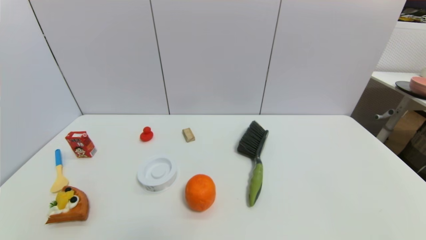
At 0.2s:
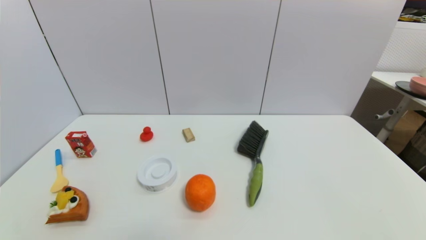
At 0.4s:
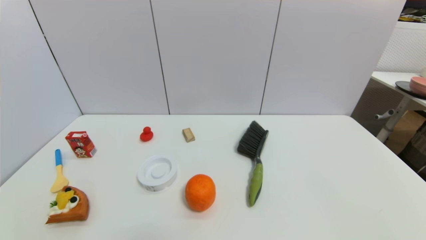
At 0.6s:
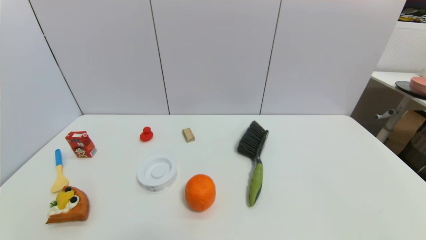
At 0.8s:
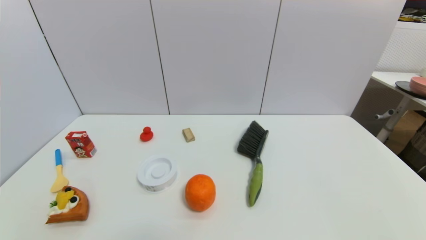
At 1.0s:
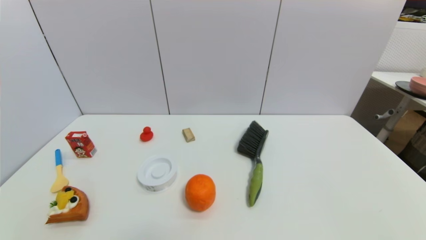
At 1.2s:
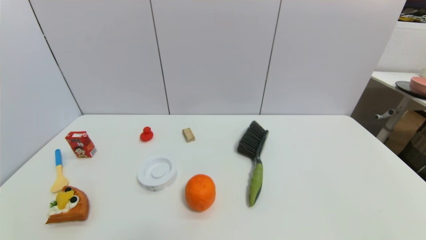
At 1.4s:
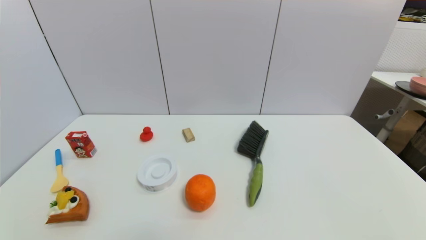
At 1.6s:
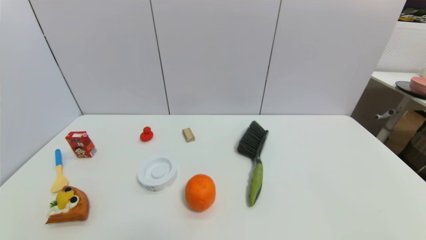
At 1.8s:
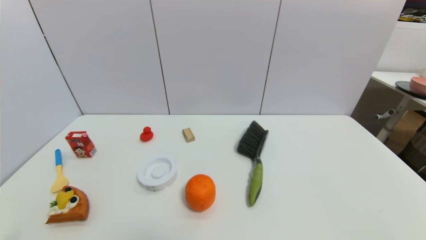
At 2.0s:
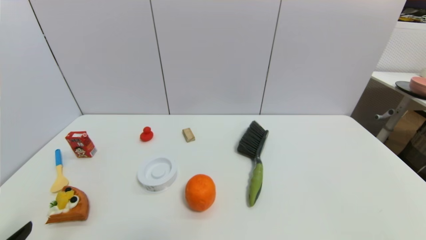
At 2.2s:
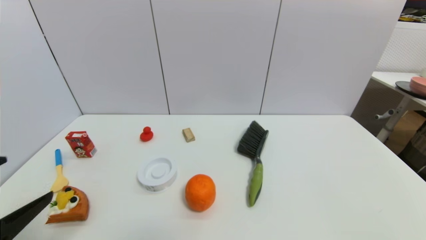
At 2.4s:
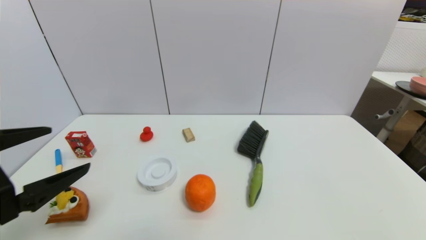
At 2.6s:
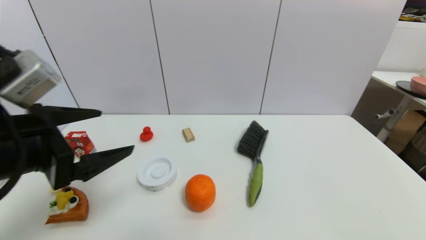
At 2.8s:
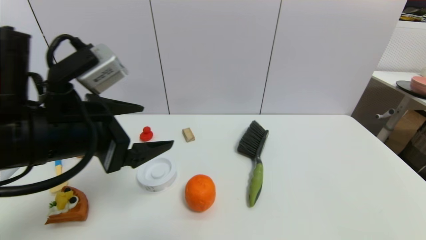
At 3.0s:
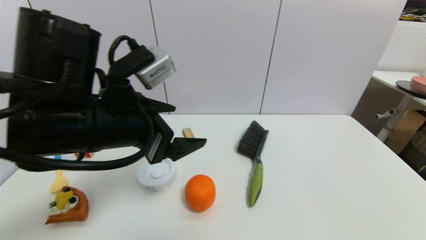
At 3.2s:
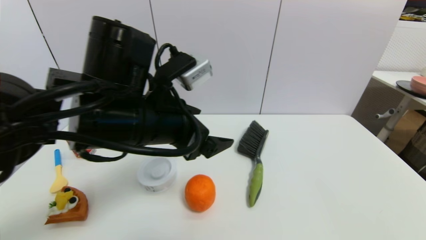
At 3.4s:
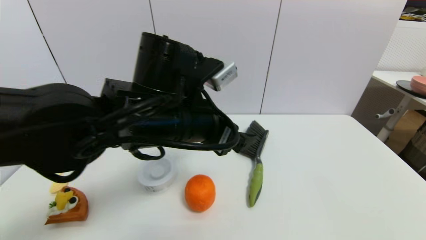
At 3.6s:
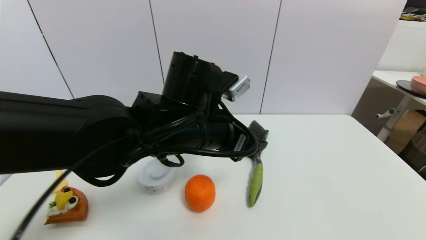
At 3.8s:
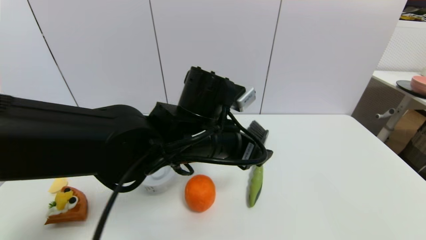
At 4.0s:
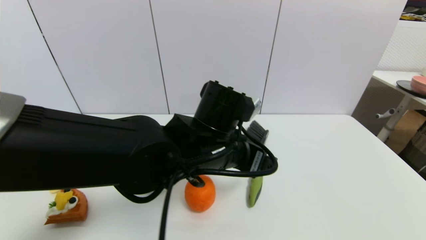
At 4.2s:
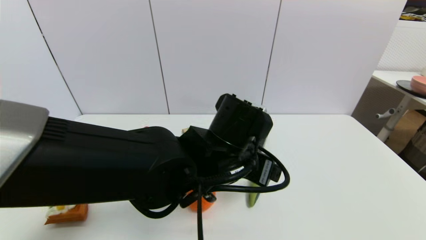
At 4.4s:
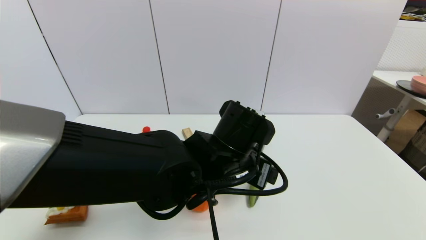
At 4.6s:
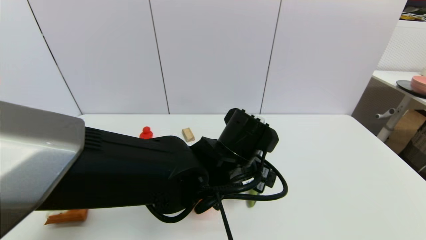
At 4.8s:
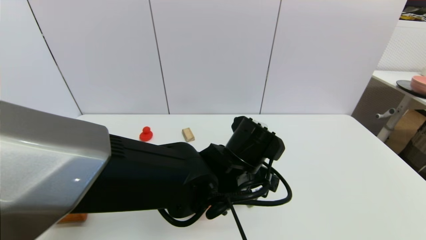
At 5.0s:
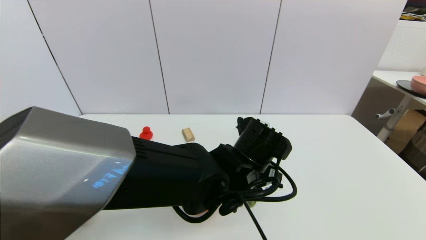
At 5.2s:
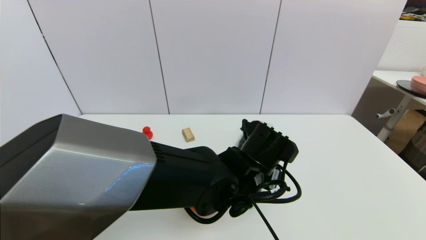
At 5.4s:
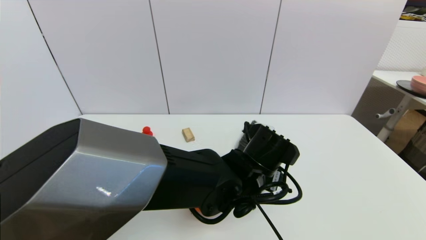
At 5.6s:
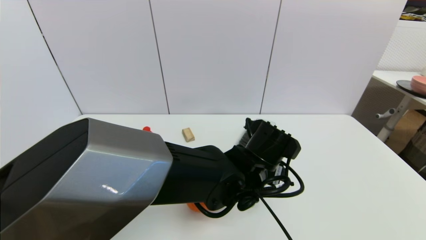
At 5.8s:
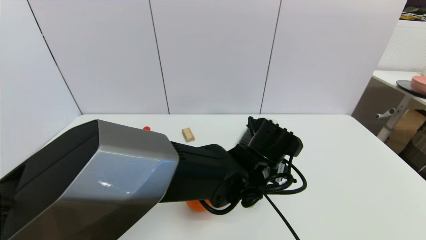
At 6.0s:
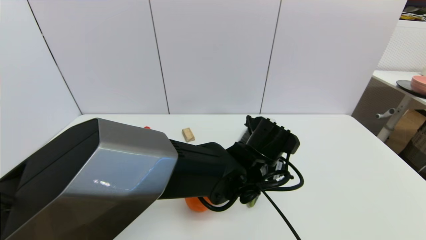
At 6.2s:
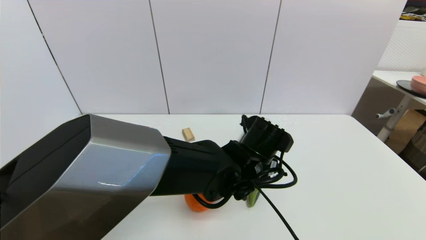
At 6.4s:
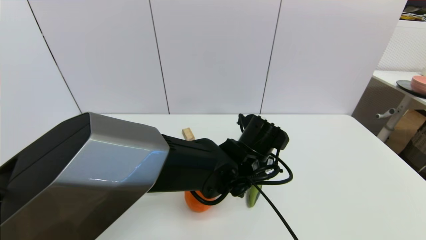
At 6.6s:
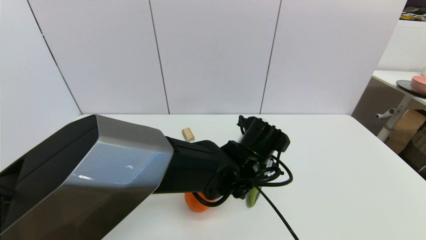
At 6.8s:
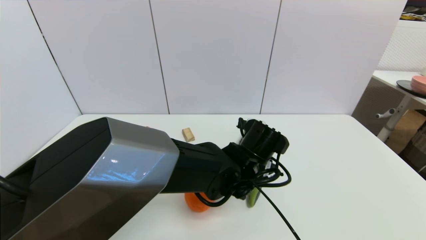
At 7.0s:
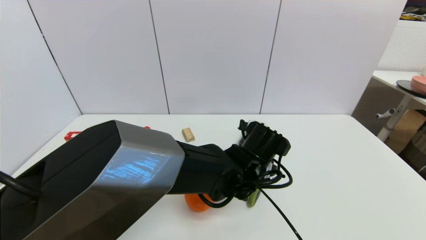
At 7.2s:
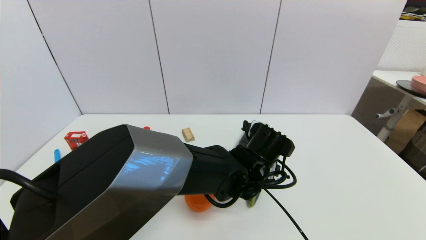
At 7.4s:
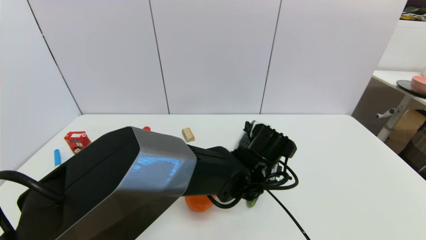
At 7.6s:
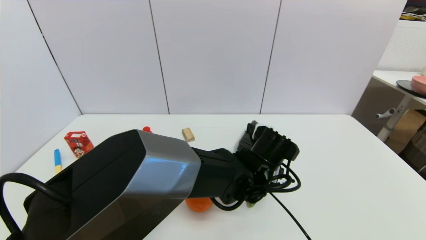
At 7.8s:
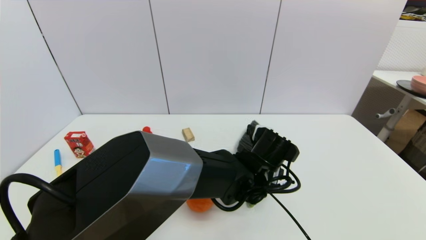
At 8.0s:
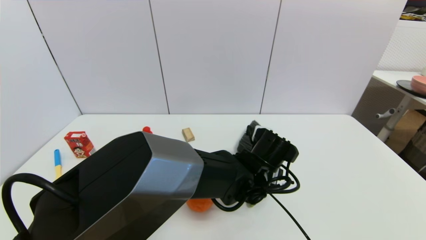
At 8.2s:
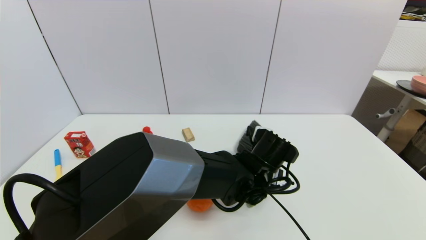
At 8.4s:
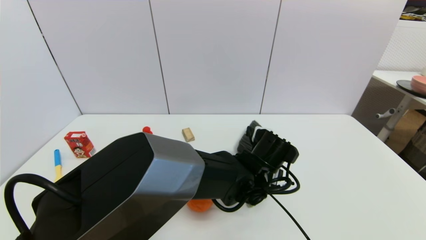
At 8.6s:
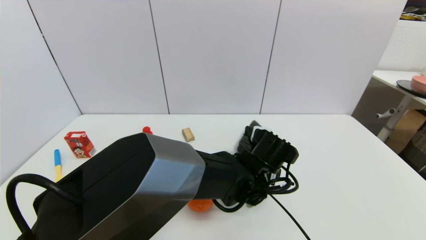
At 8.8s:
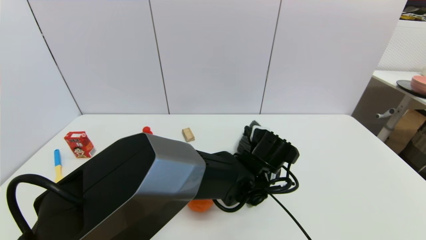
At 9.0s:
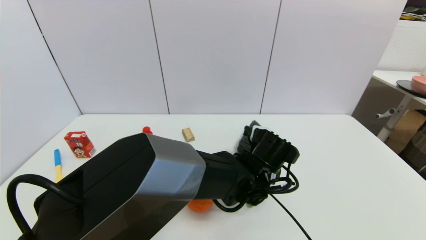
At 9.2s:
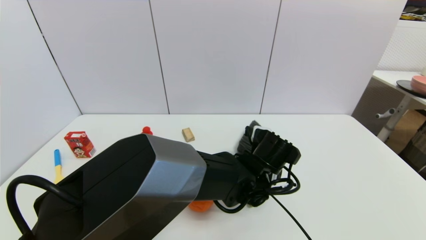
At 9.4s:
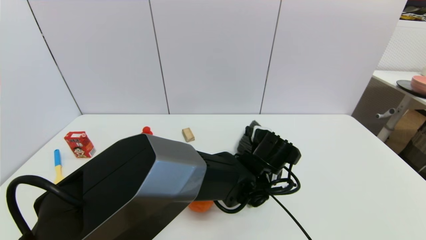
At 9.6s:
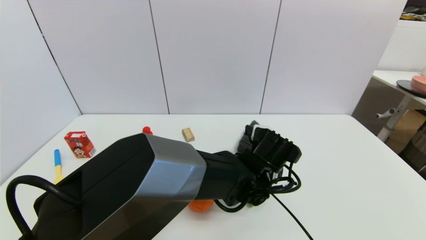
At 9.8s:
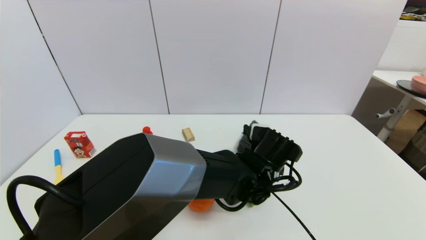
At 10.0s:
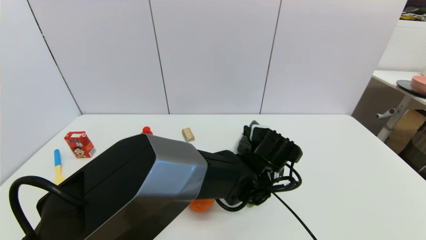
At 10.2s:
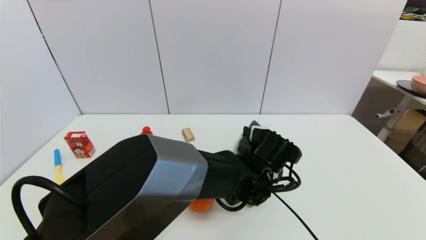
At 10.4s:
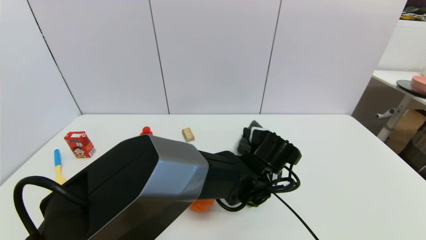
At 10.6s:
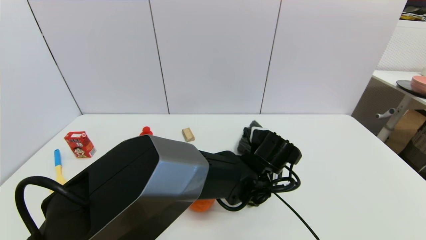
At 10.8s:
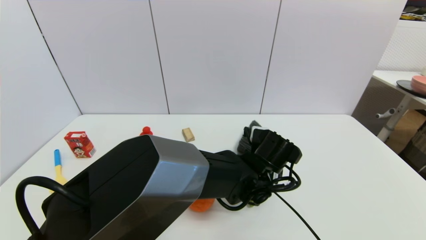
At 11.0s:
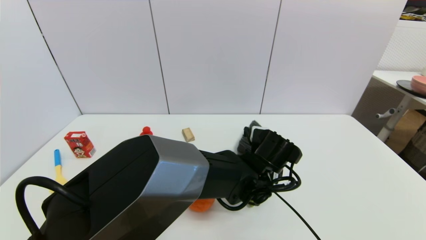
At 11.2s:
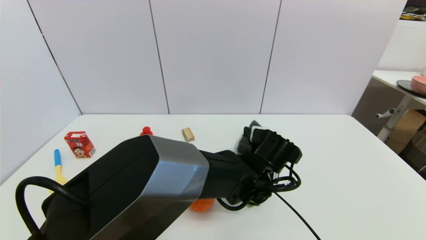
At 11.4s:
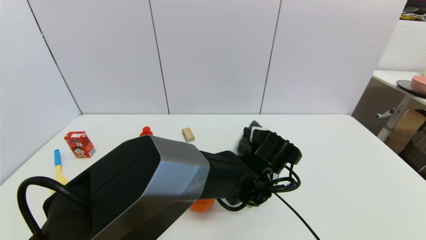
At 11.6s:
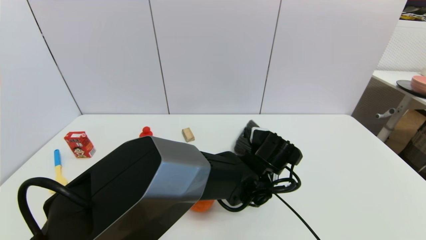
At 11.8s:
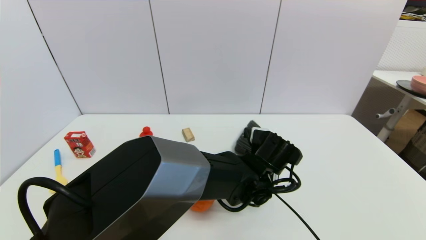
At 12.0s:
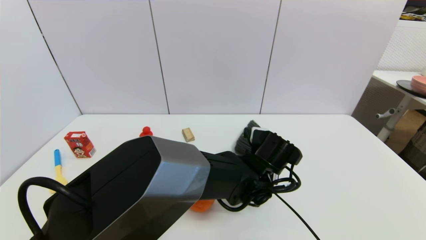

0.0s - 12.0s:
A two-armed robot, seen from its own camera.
Task of the whole recording: put the brush in the designated position.
1.6s - 3.0s: The left gripper travels forward, upward and to the right by about 30 cm.
3.0s - 4.4s: The left gripper moves to the right and downward, about 20 cm.
4.4s - 6.0s: The left gripper moves to the right, roughly 5 cm.
6.0s - 7.6s: The grippers stay close to where they were, moving slightly.
7.6s - 9.0s: Both grippers stay put.
9.0s - 10.4s: The grippers make only small movements.
10.4s - 12.0s: The left gripper closes.

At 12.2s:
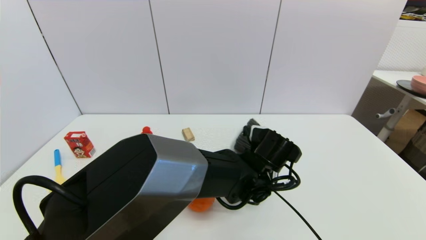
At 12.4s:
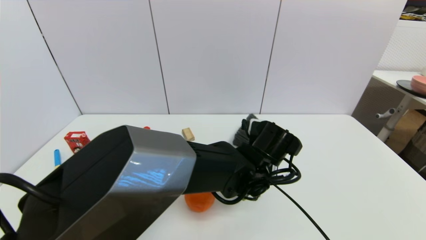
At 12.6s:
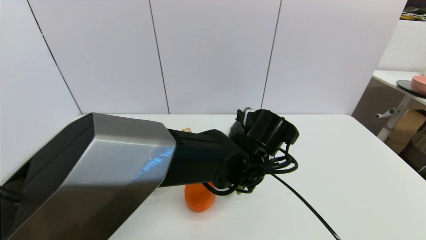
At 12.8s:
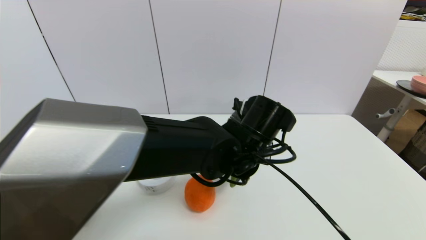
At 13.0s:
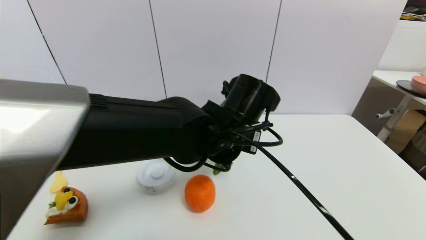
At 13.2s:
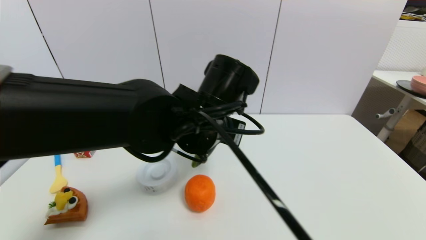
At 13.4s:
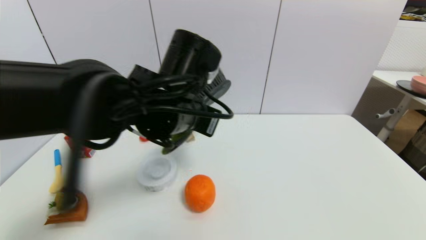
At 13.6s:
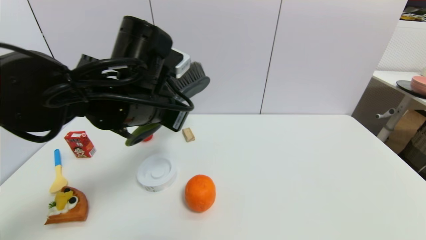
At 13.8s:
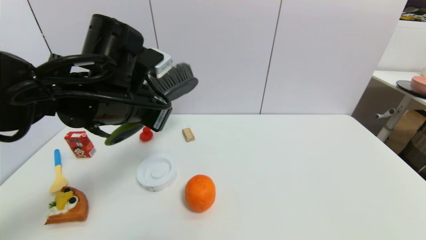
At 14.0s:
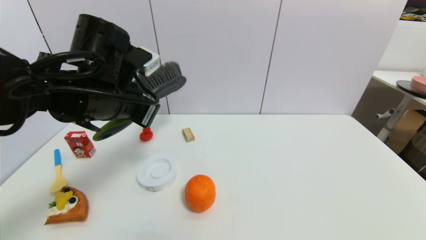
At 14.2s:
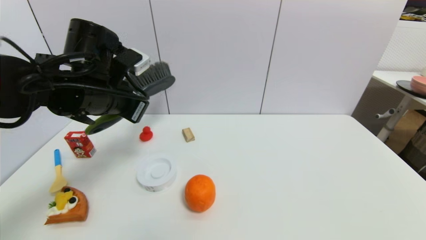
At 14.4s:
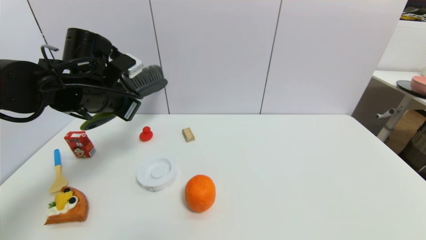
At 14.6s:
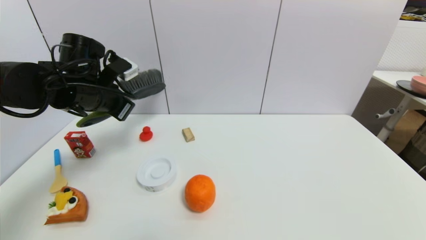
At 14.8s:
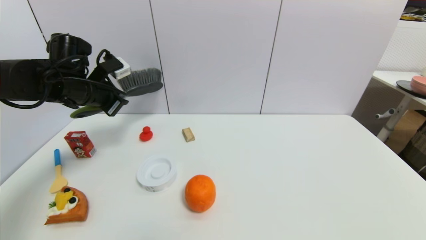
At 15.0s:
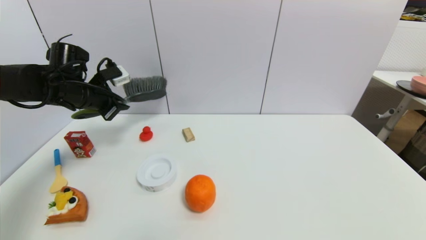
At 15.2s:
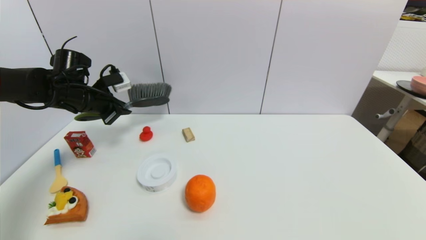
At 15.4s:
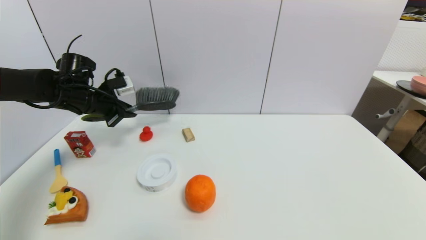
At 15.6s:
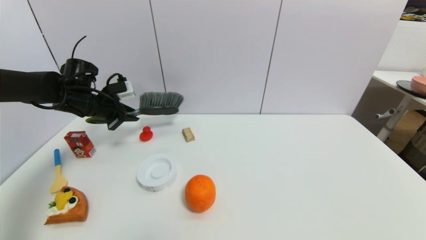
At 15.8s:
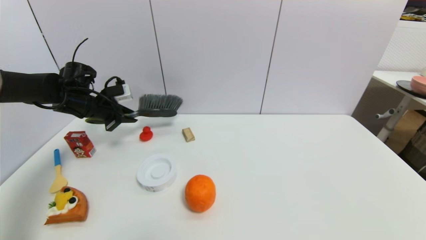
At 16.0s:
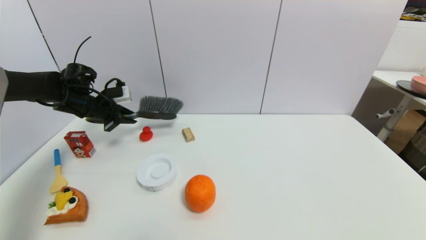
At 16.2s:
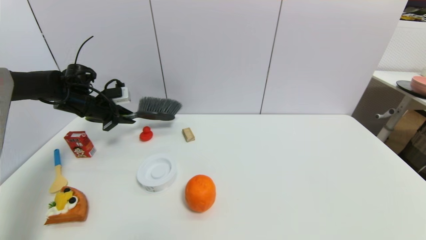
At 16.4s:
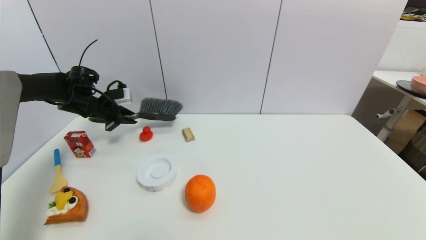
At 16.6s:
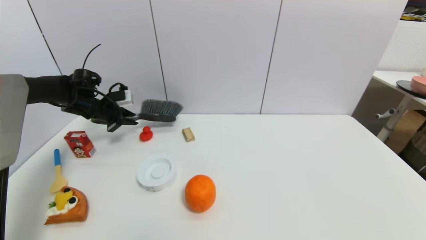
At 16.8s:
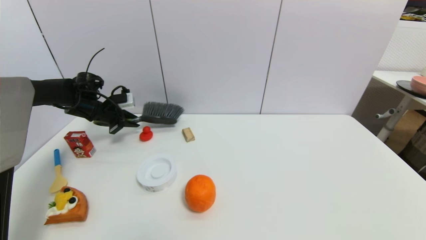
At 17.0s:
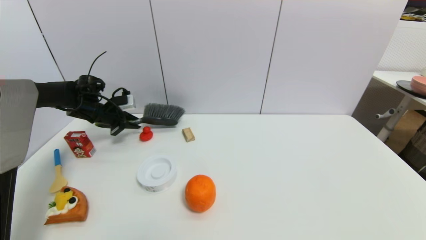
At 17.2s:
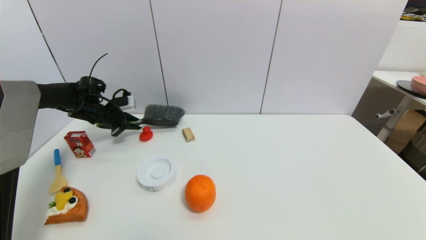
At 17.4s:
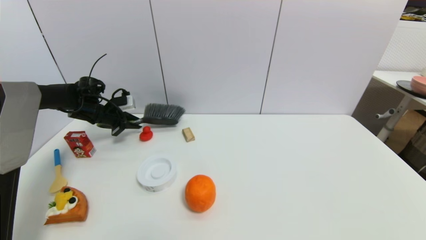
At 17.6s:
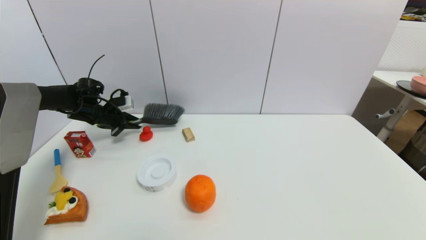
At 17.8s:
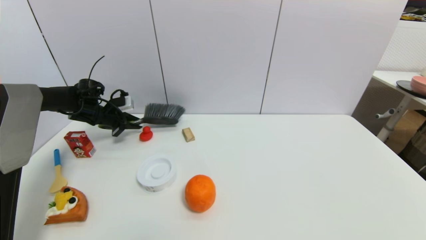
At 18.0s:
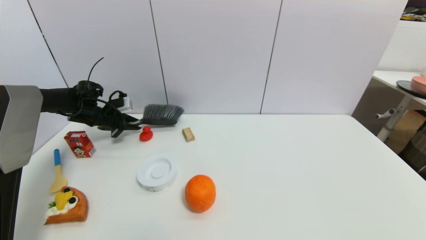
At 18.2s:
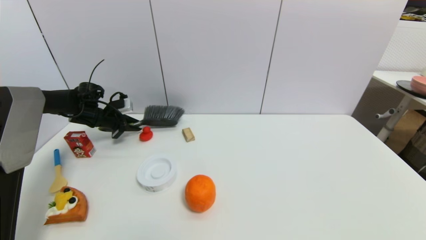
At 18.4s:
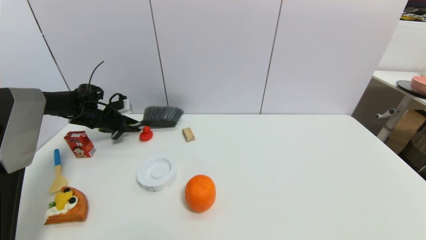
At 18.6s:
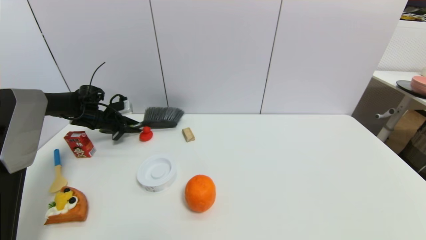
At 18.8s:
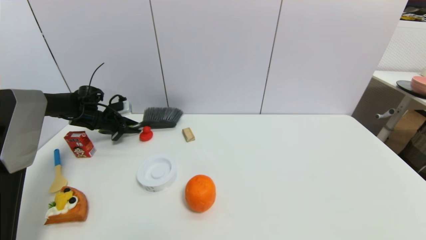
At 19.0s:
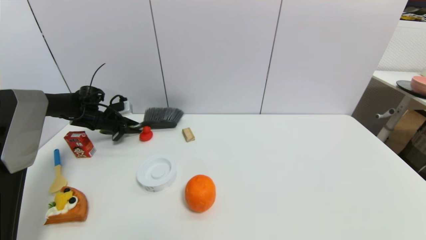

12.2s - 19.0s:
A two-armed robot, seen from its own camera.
Task of the whole recording: put the brush in the designated position.
12.2s - 13.6s: The left gripper goes some 25 cm to the left and upward.
13.6s - 15.0s: The left gripper is displaced to the left and forward by approximately 25 cm.
15.0s - 16.2s: The left gripper heads forward, covering roughly 5 cm.
16.2s - 17.6s: The left gripper ends up some 5 cm from where it was.
17.6s - 19.0s: The grippers move only a little.
